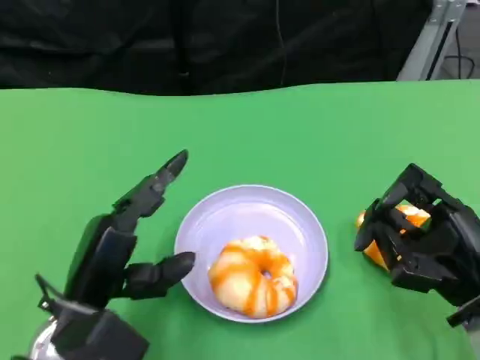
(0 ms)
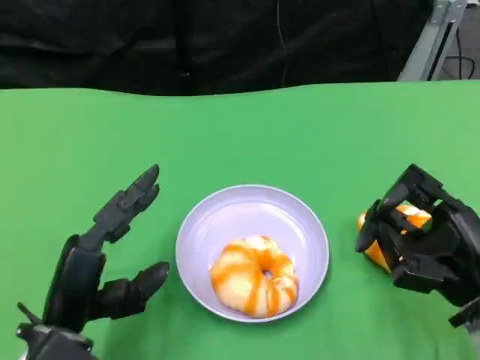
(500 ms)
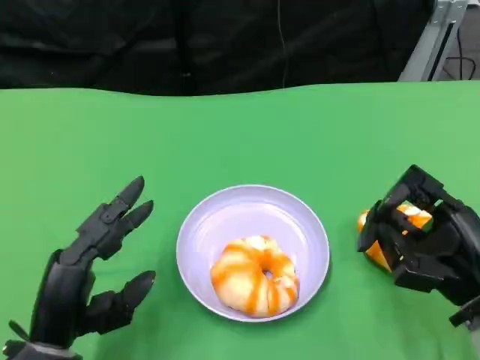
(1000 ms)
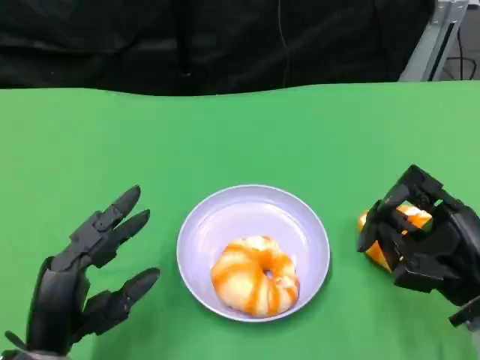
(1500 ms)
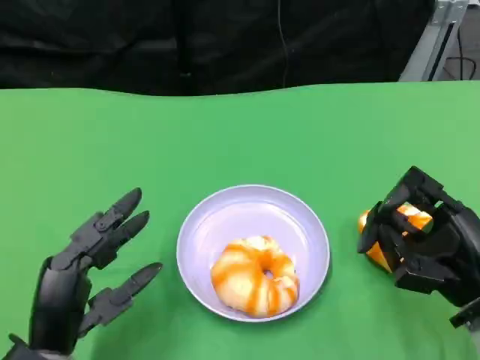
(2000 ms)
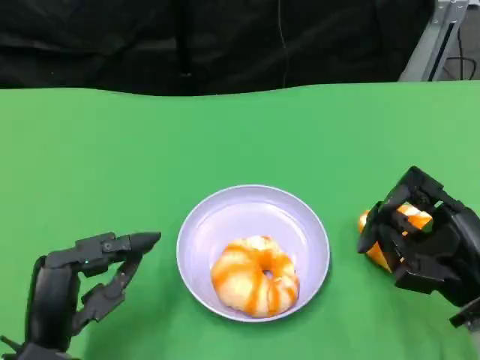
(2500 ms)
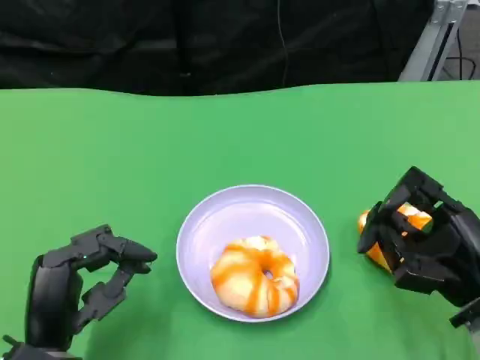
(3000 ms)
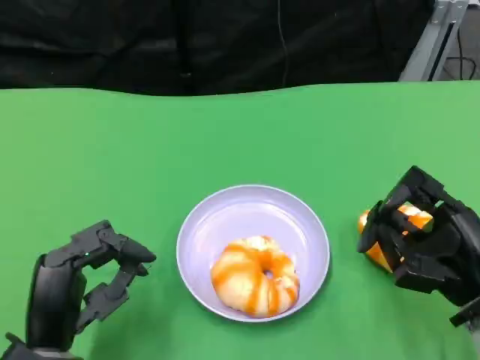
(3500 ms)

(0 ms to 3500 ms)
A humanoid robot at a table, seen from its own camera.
Task of the whole recording: Grasp the bread from the table and place it into the plate.
2000 ms - 3500 ms: The hands move only a little.

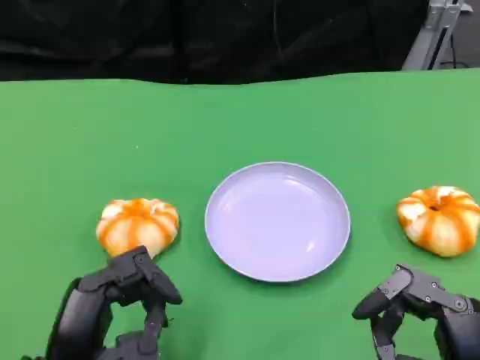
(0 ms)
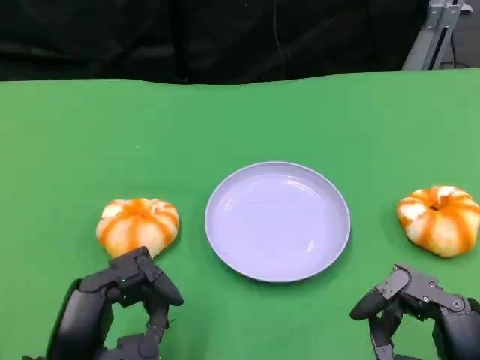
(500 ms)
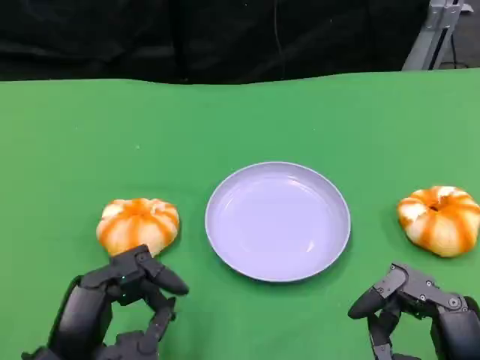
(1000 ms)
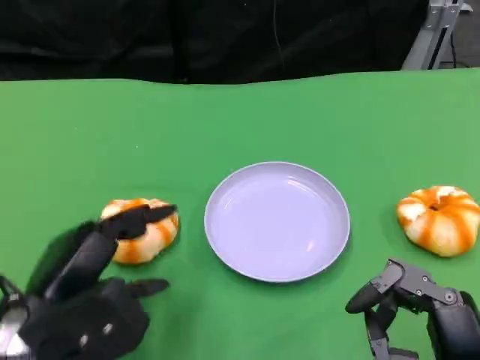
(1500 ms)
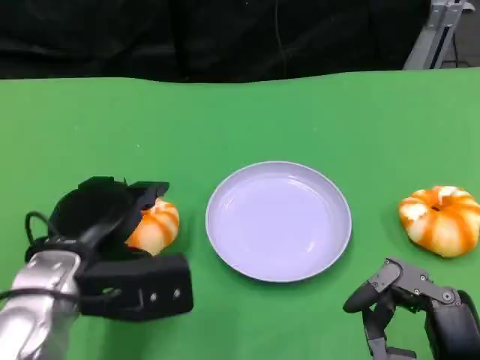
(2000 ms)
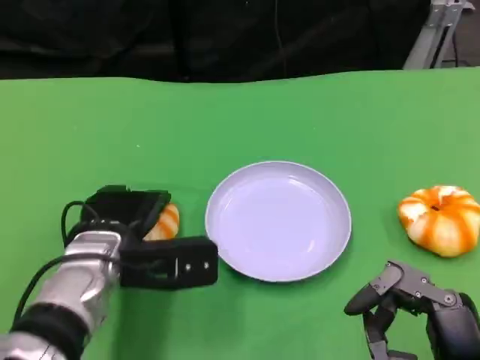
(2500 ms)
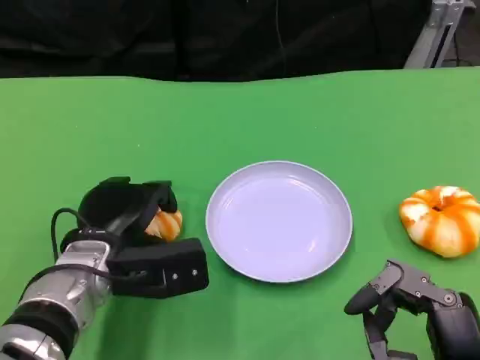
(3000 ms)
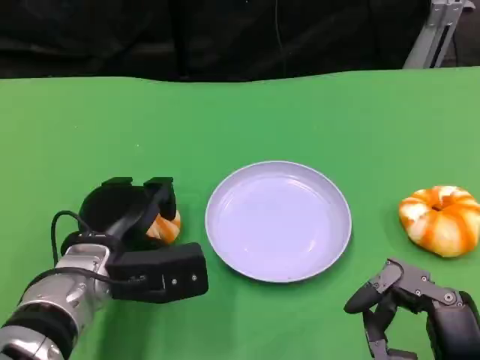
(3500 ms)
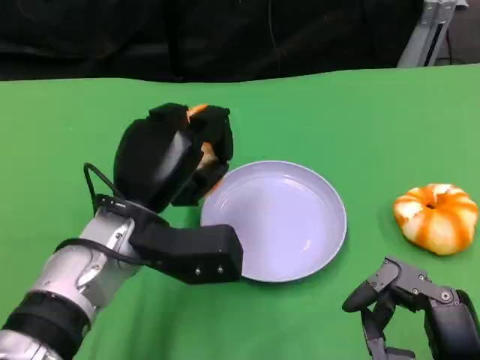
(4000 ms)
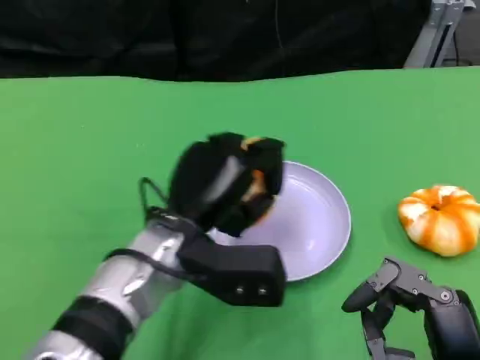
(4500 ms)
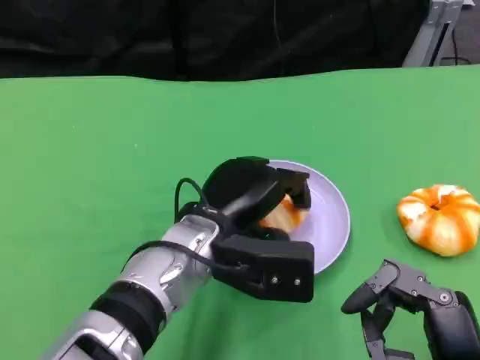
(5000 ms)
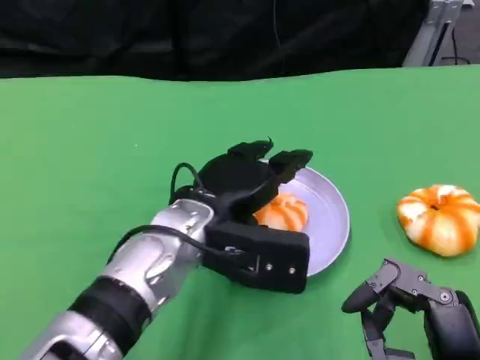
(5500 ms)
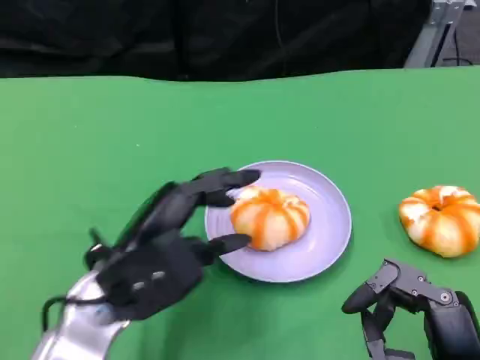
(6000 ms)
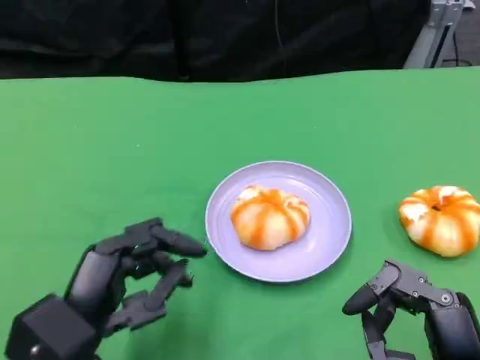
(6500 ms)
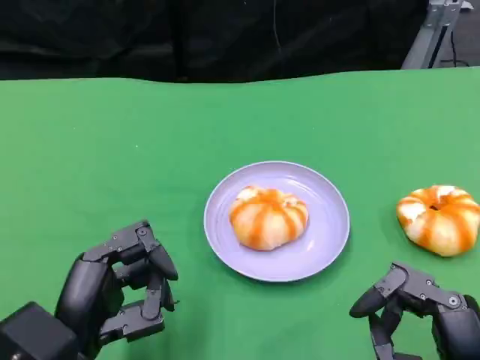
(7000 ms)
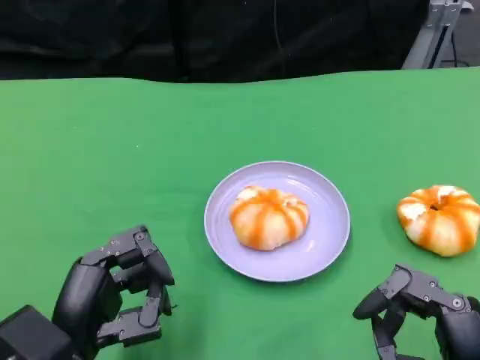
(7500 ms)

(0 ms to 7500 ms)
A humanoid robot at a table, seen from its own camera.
Task of the whole recording: Grasp the bread from the table and place it into the plate.
0 ms - 2000 ms: The left hand goes roughly 10 cm forward.
2000 ms - 4000 ms: The left hand moves to the right, approximately 5 cm.
4000 ms - 5500 ms: The left hand heads to the right, covering some 5 cm.
5500 ms - 7500 ms: The left hand shifts about 20 cm to the left, backward and downward.

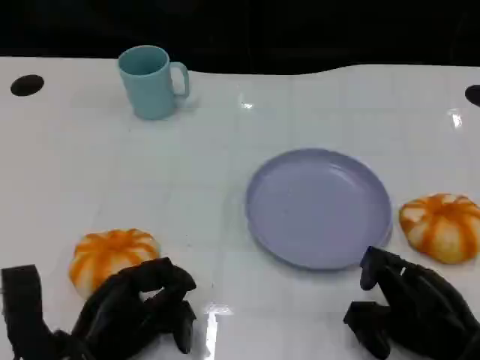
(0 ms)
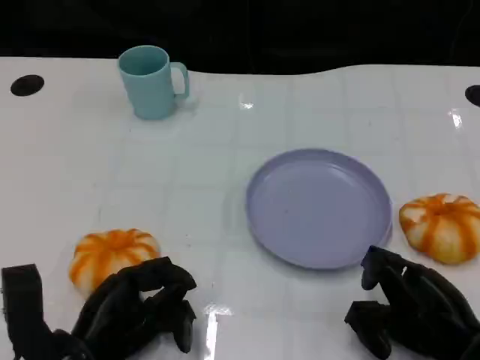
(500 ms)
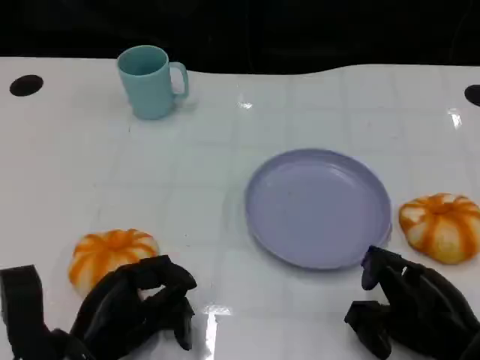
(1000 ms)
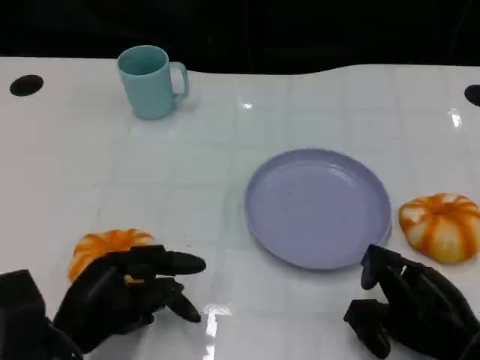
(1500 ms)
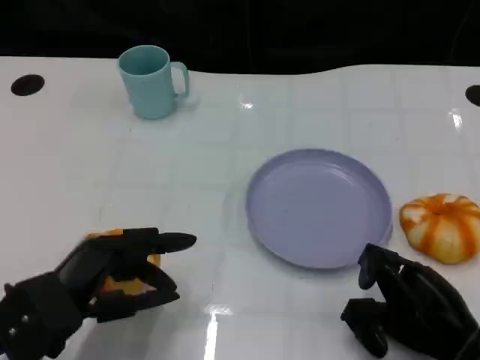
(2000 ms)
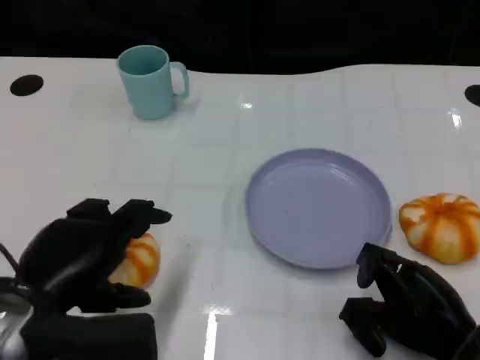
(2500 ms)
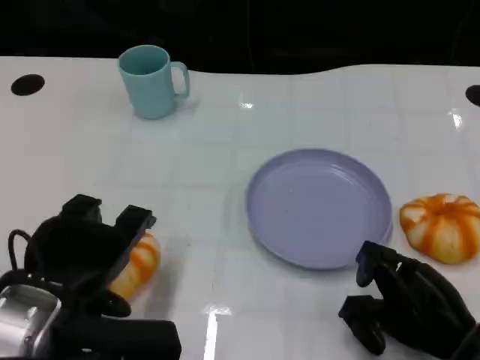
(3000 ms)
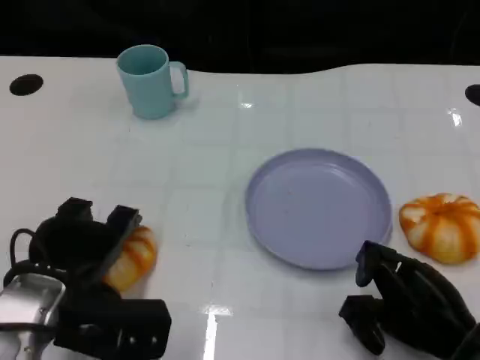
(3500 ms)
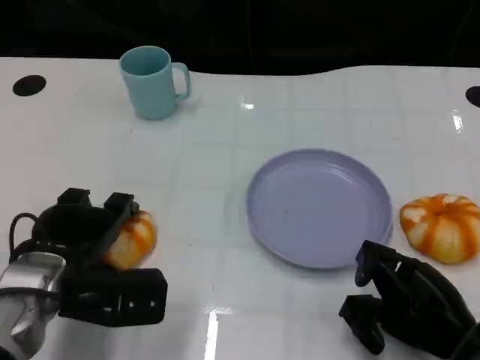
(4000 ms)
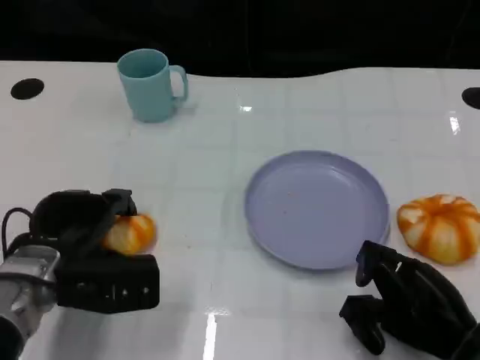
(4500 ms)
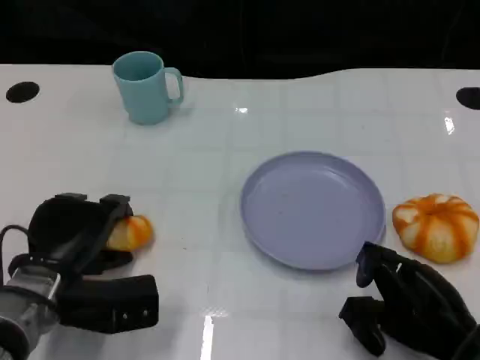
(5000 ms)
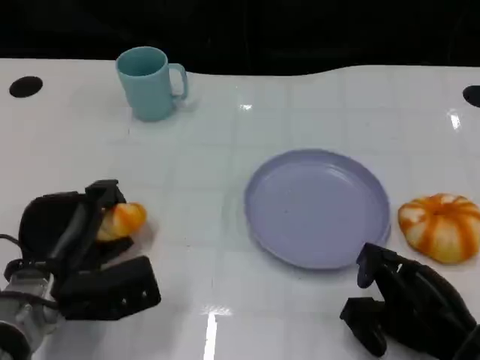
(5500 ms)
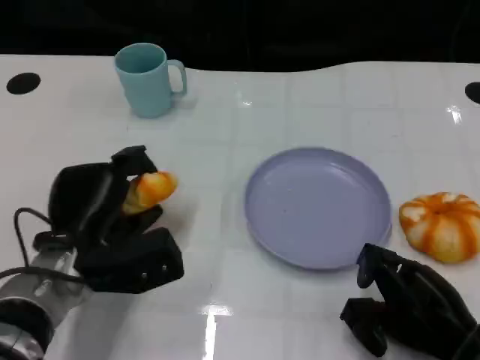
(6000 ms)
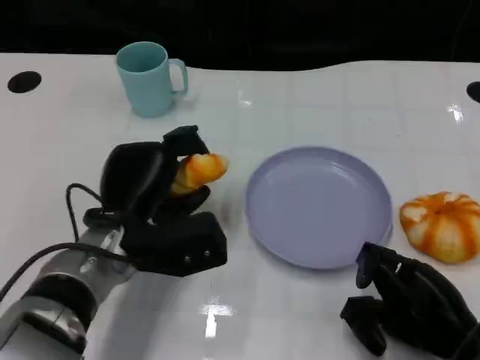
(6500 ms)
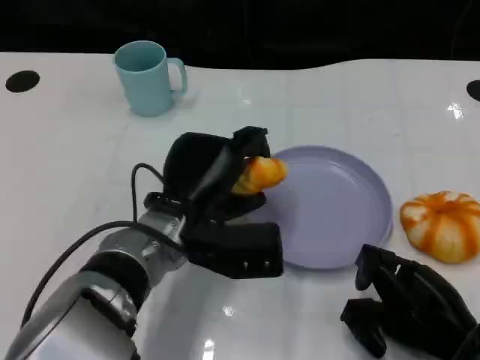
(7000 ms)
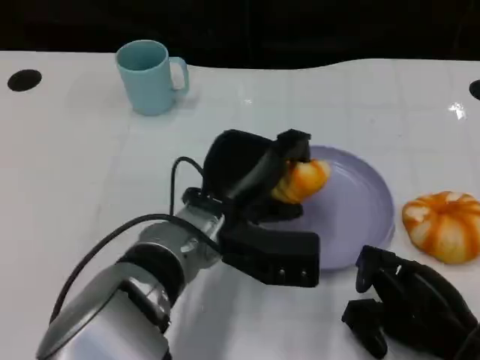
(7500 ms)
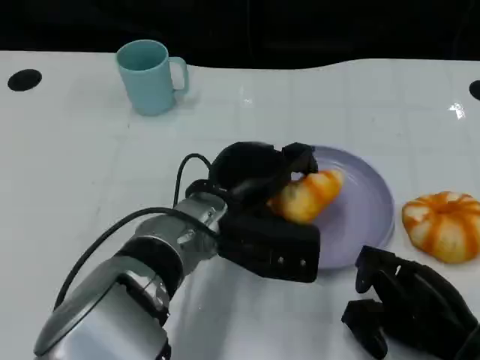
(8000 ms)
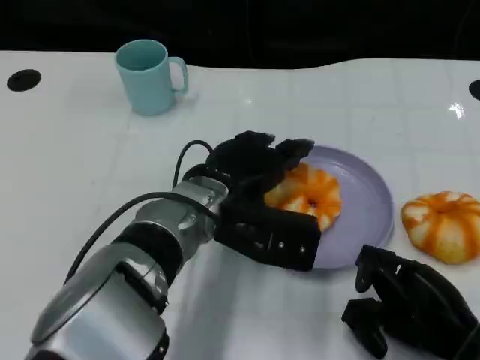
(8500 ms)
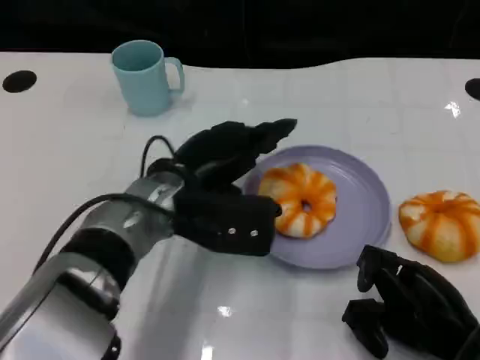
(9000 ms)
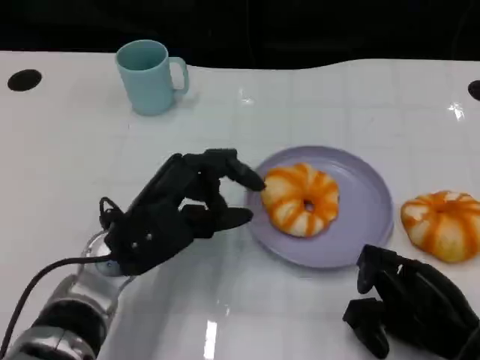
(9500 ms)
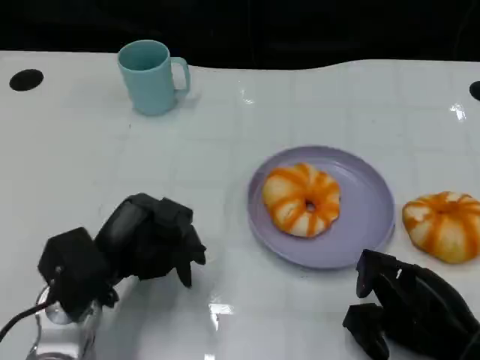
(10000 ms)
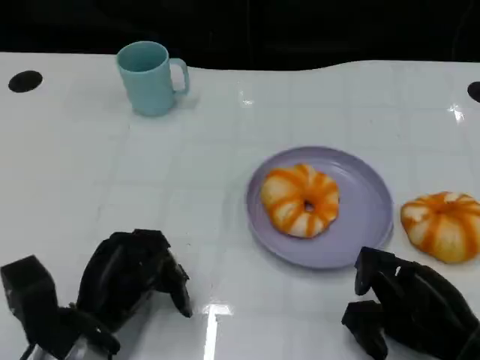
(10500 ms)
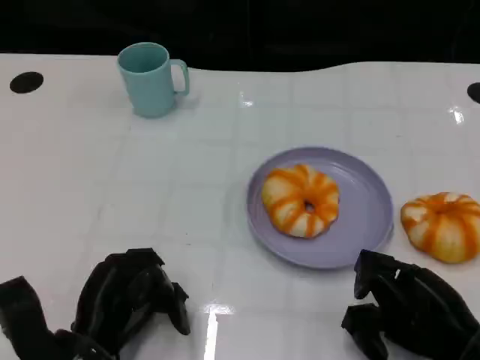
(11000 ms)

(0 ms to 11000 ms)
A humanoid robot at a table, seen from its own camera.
Task of the whole recording: Grasp the bread from the table and place it into the plate.
0 ms - 2000 ms: The left hand shifts about 5 cm upward.
3500 ms - 5500 ms: The left hand shifts by some 5 cm.
5500 ms - 7500 ms: The left hand shifts some 15 cm to the right.
7500 ms - 9000 ms: The left hand travels to the left by some 5 cm.
9000 ms - 11000 ms: The left hand heads backward, downward and to the left, covering approximately 20 cm.

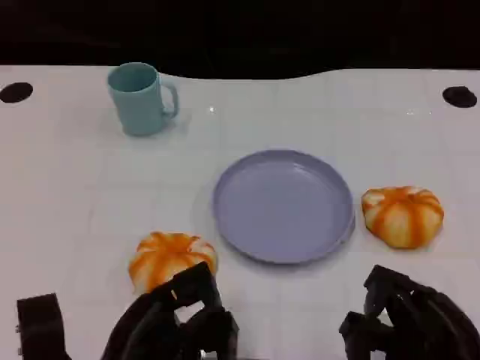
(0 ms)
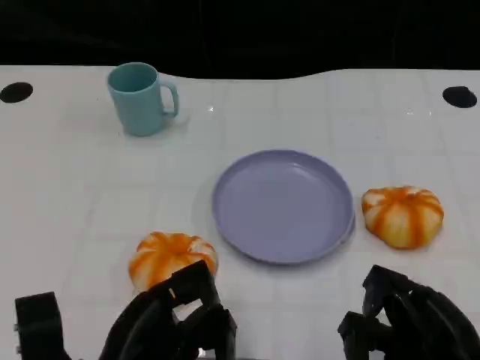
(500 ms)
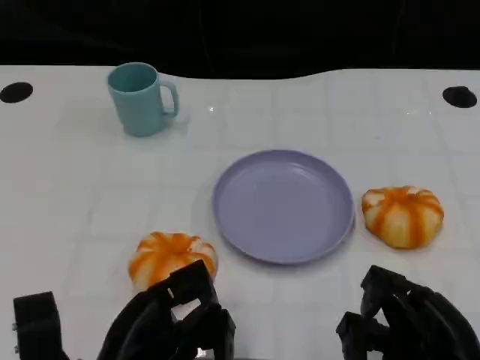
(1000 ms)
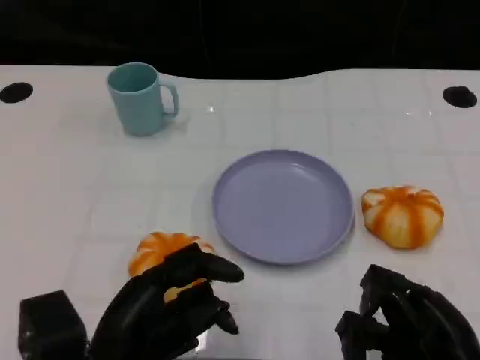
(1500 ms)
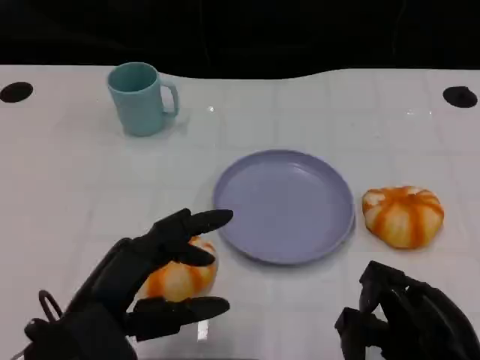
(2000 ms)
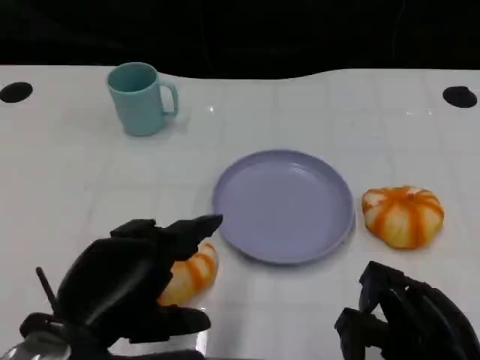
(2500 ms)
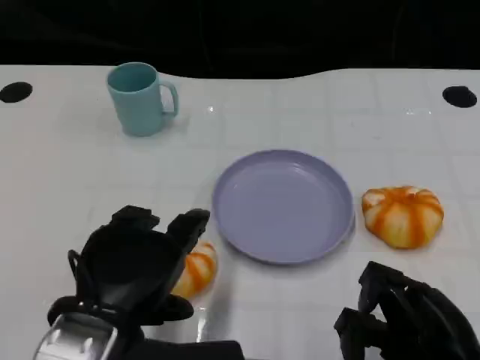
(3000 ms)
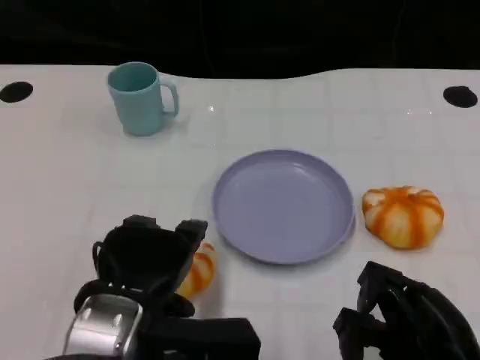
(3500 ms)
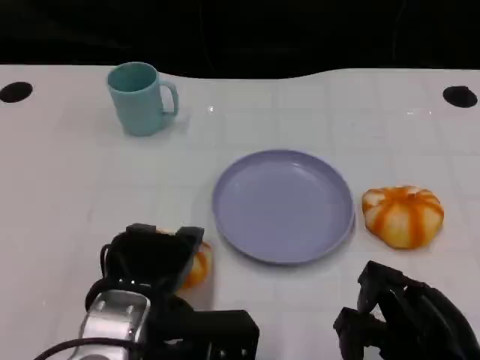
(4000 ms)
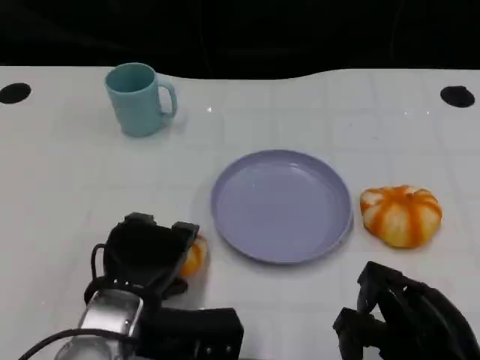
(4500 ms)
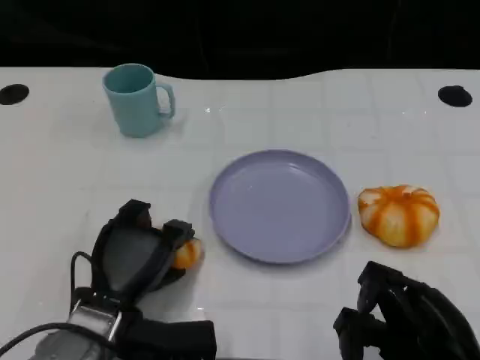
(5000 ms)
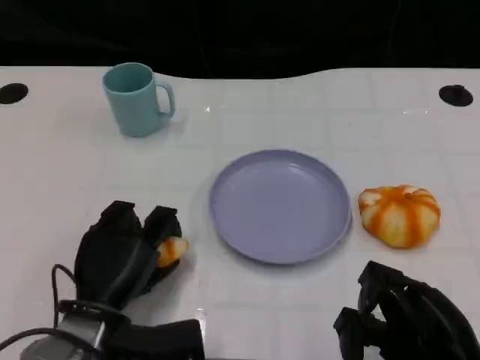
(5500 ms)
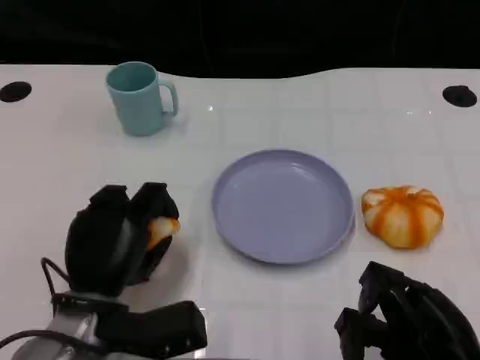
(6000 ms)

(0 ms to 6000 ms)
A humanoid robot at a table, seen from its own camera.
Task of the whole recording: Grasp the bread from the table and place it into the plate.
0 ms - 2000 ms: The left hand moves upward, approximately 5 cm.
2000 ms - 4000 ms: The left hand heads to the right and forward, covering roughly 5 cm.
4000 ms - 6000 ms: The left hand travels downward by about 5 cm.
